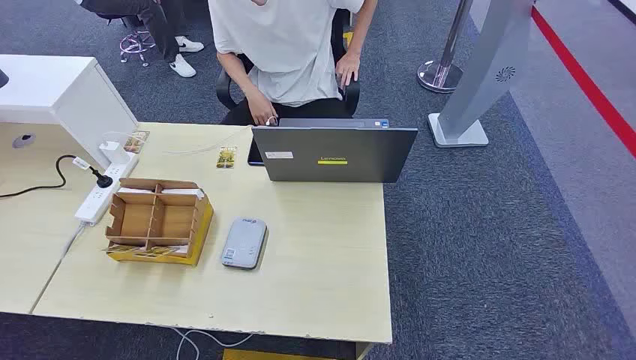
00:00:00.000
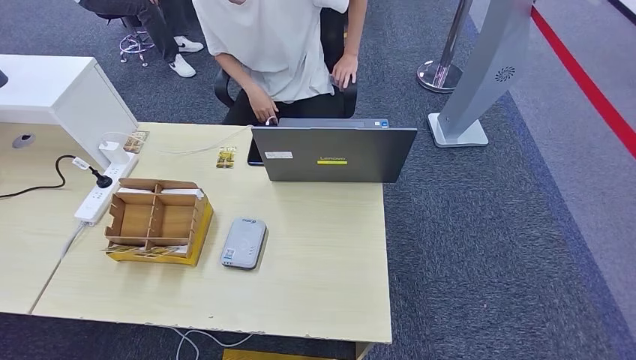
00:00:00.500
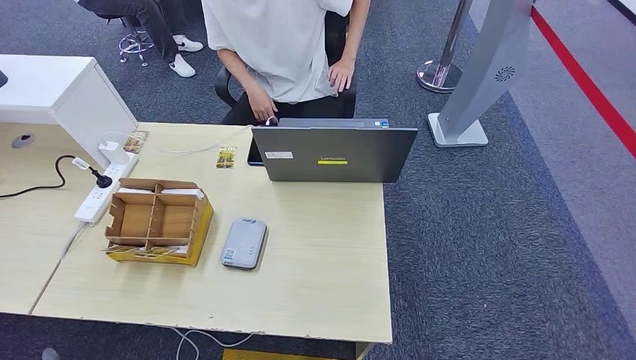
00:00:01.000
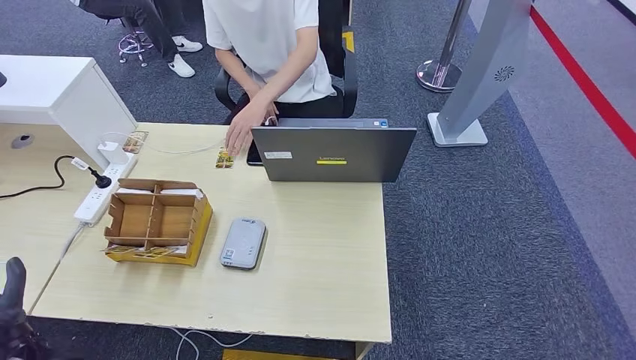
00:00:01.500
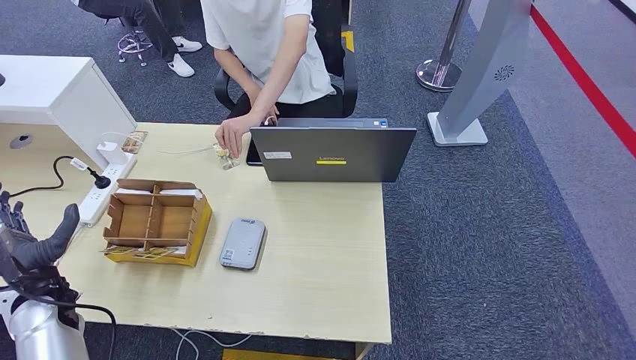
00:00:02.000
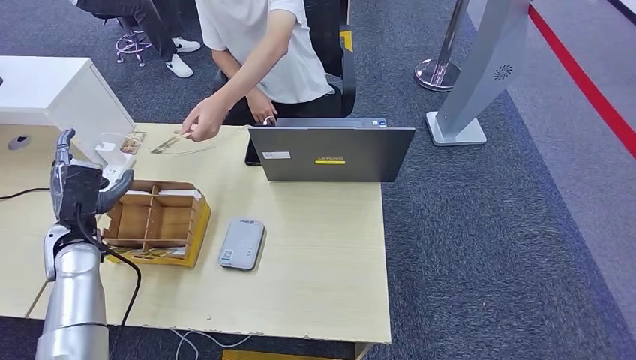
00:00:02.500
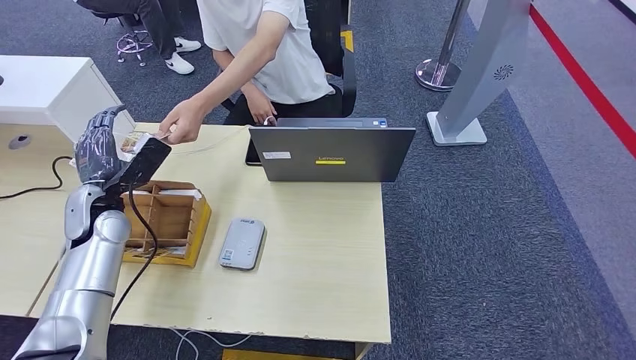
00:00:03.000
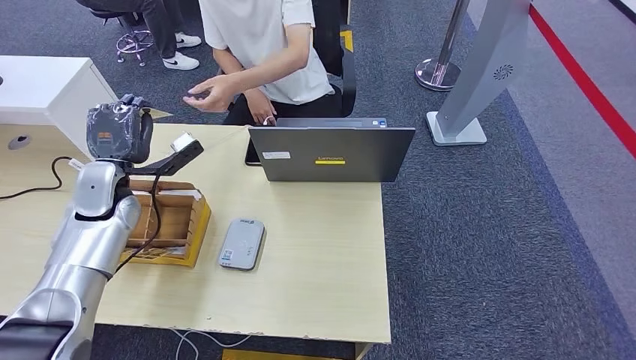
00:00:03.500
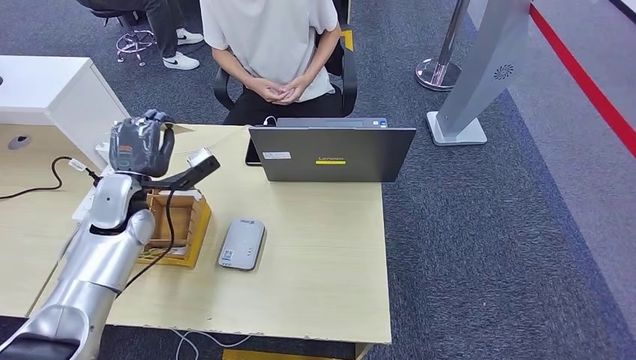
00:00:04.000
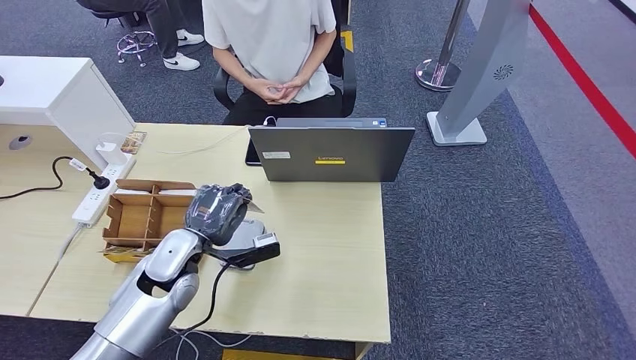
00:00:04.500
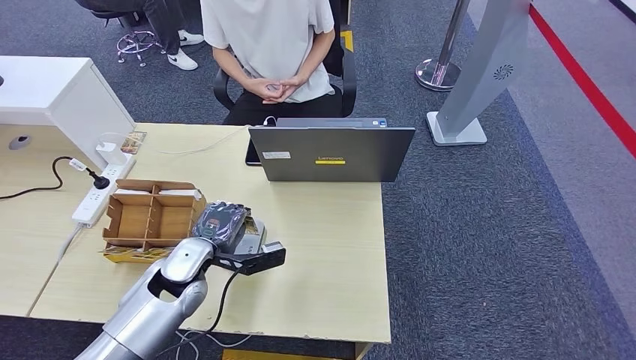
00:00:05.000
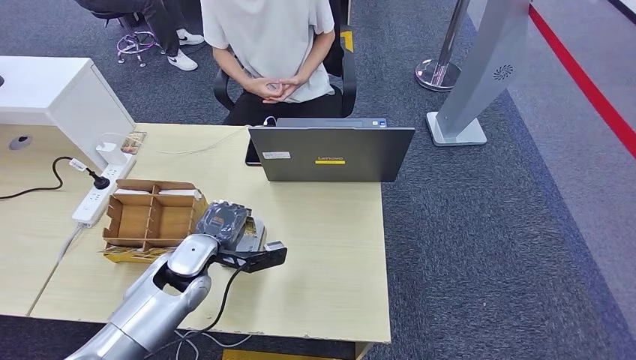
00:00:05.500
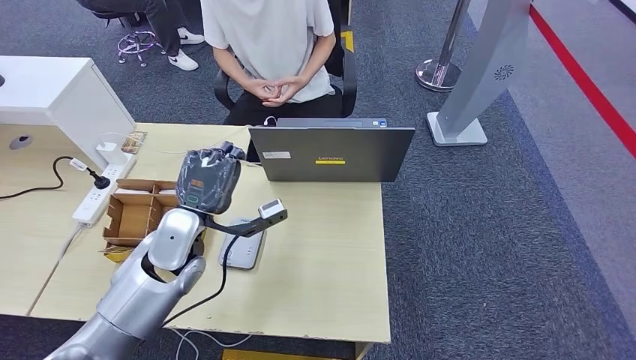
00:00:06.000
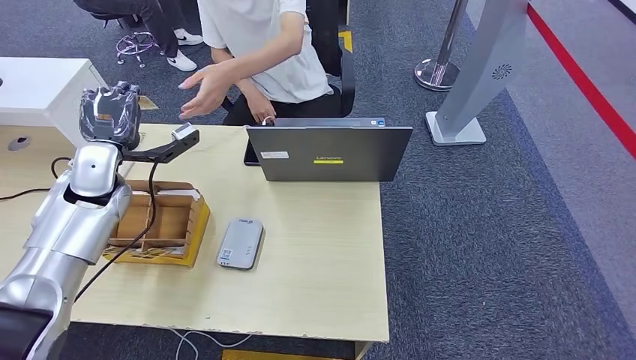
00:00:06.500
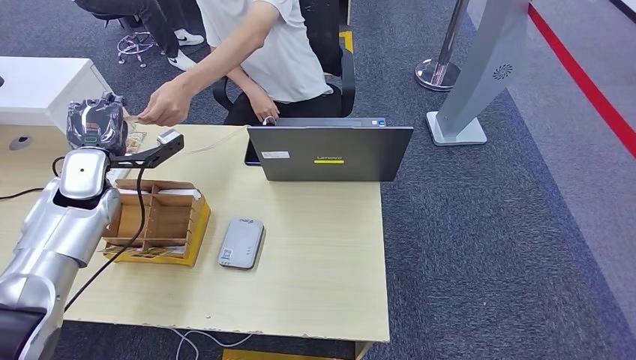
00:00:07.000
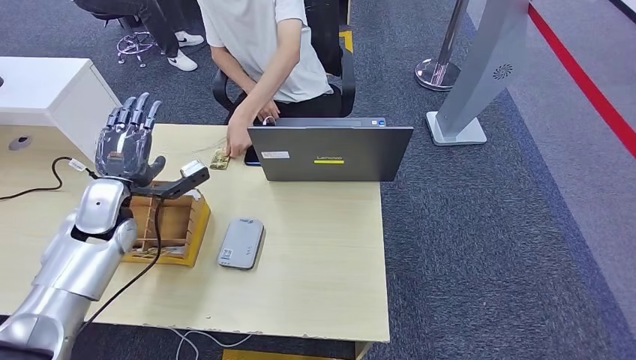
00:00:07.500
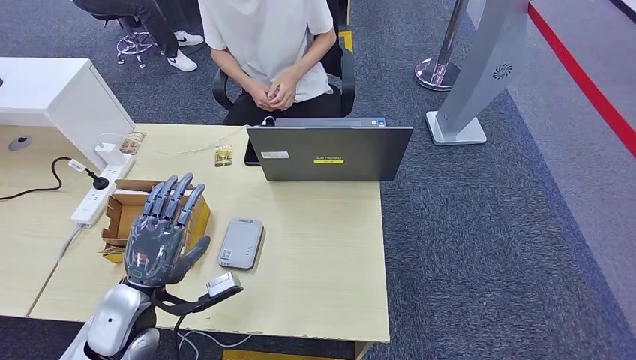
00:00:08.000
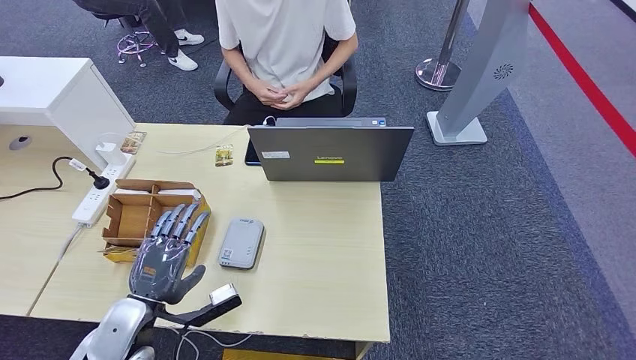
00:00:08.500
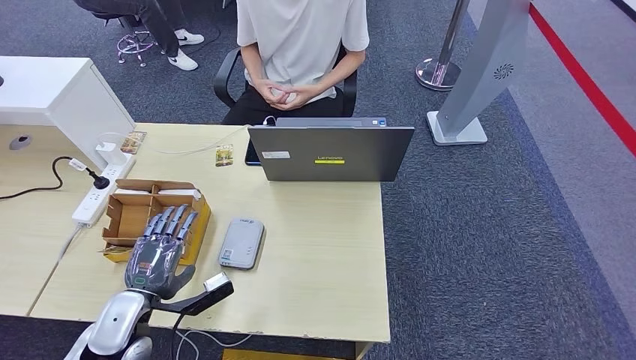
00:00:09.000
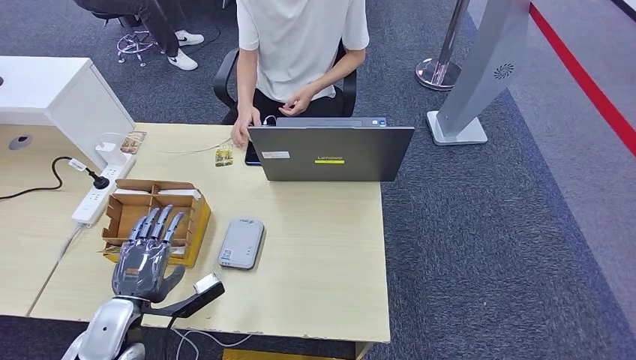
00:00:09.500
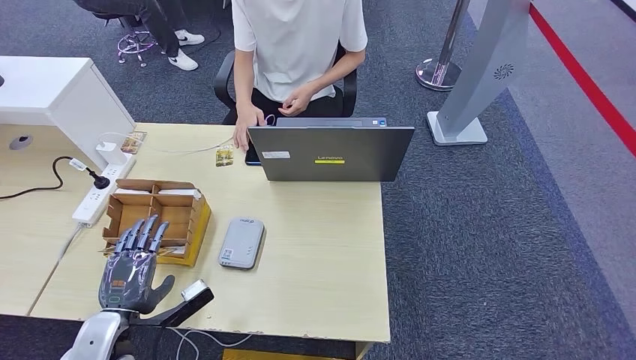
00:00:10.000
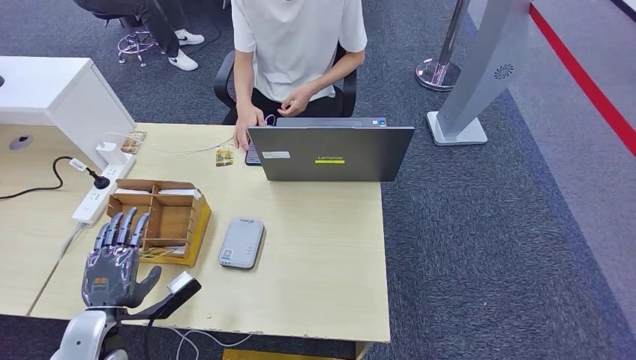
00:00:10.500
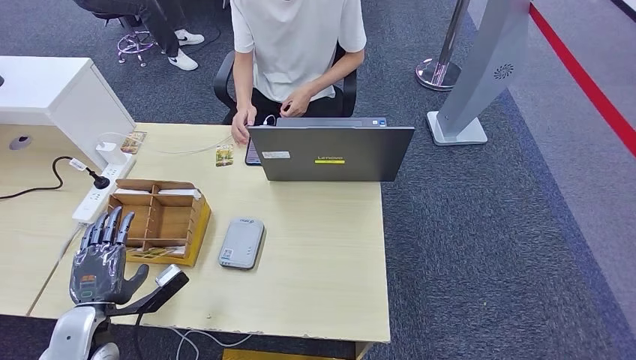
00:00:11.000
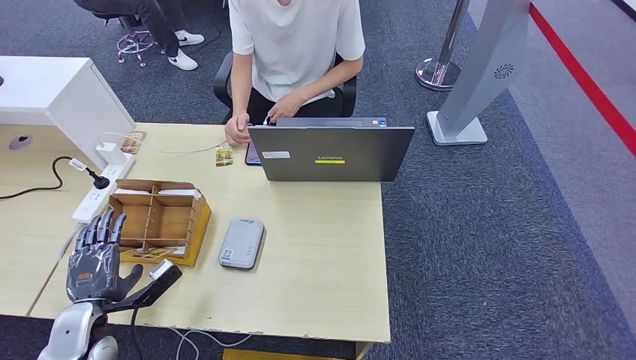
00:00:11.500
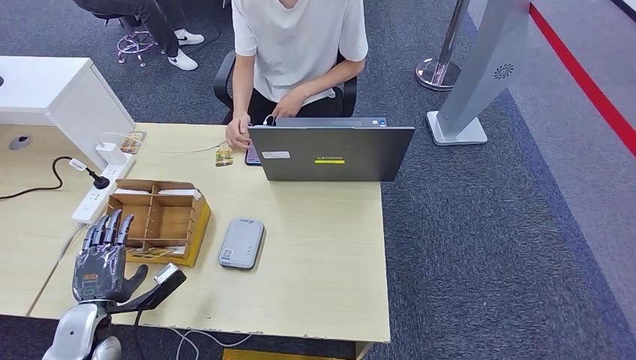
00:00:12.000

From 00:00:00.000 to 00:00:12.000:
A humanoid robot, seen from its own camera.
Step, from 00:00:00.000 to 00:00:03.000: Take the ID card from the person's hand.
Step, from 00:00:04.000 to 00:00:05.500: Place the ID card on the card reader.
Step, from 00:00:06.500 to 00:00:08.000: Hand the ID card to the person.
From 00:00:02.000 to 00:00:04.000: The left hand moves forward, to the right and upward, some 20 cm.
From 00:00:04.000 to 00:00:06.000: The left hand travels to the right by about 10 cm.
From 00:00:06.000 to 00:00:08.000: The left hand shifts about 15 cm backward, to the left and downward.
From 00:00:08.000 to 00:00:10.000: The left hand travels downward by about 5 cm.
From 00:00:10.000 to 00:00:12.000: The left hand is displaced to the left by roughly 5 cm.

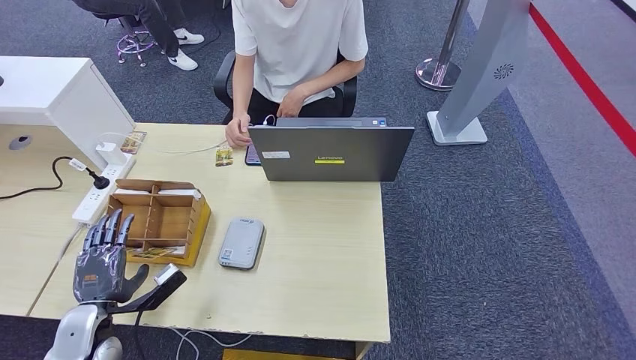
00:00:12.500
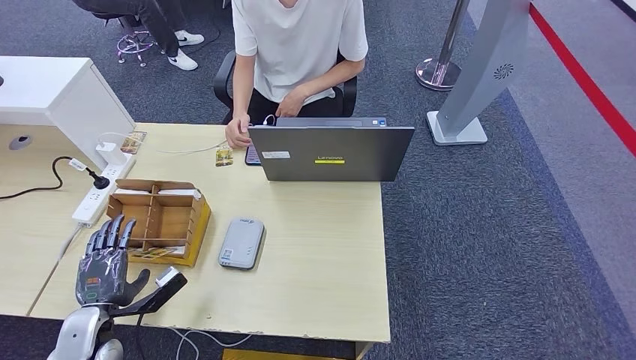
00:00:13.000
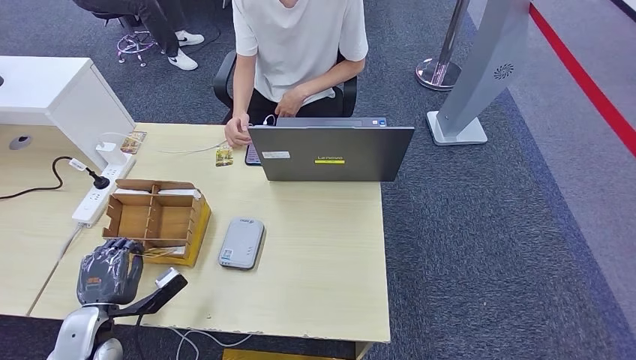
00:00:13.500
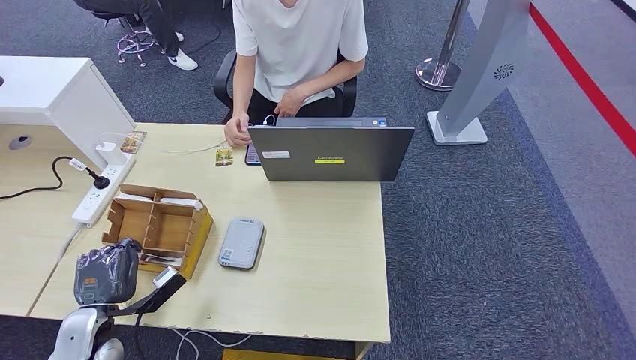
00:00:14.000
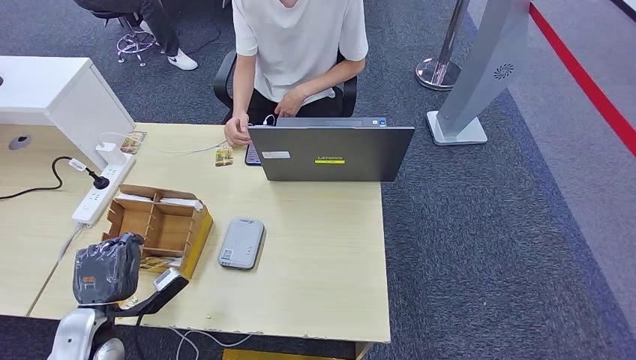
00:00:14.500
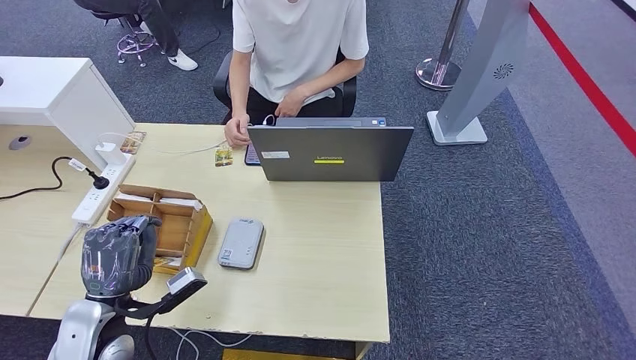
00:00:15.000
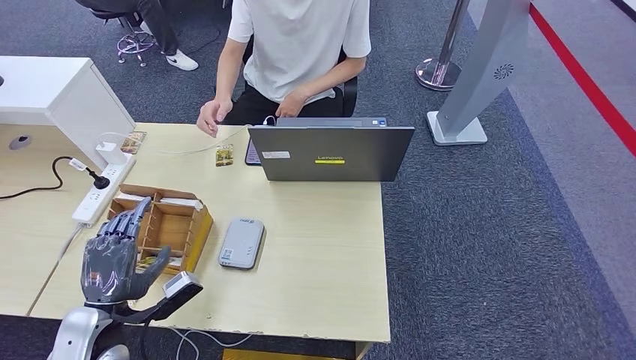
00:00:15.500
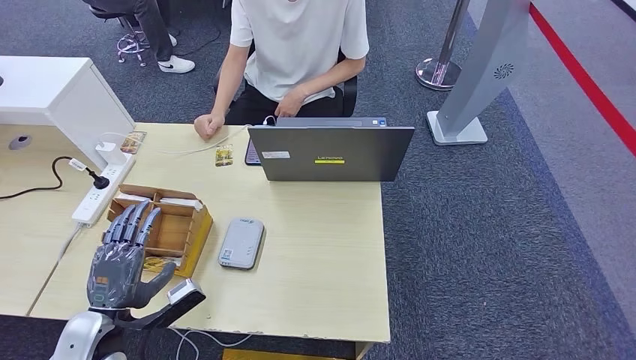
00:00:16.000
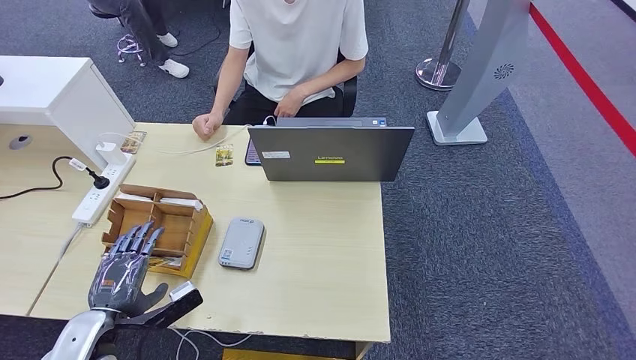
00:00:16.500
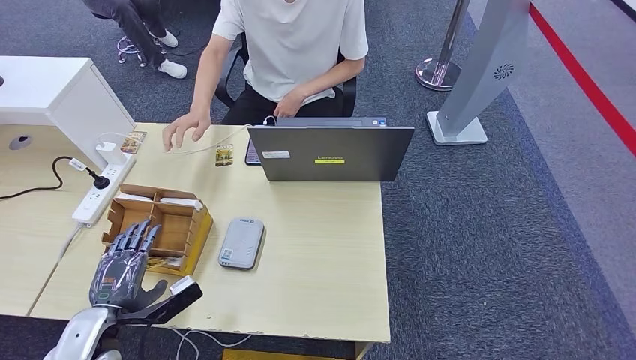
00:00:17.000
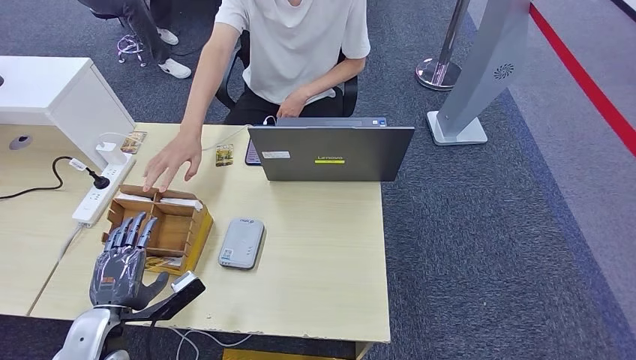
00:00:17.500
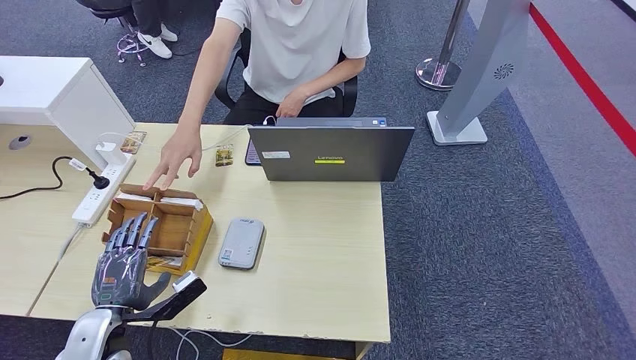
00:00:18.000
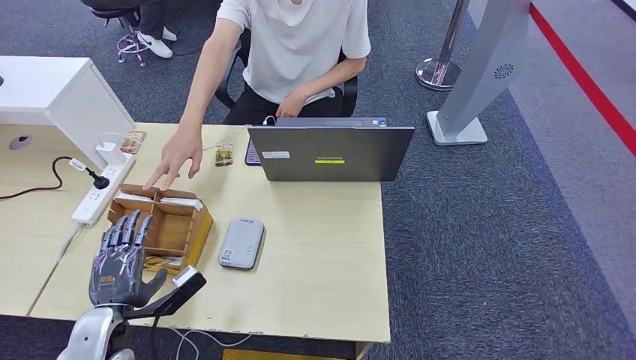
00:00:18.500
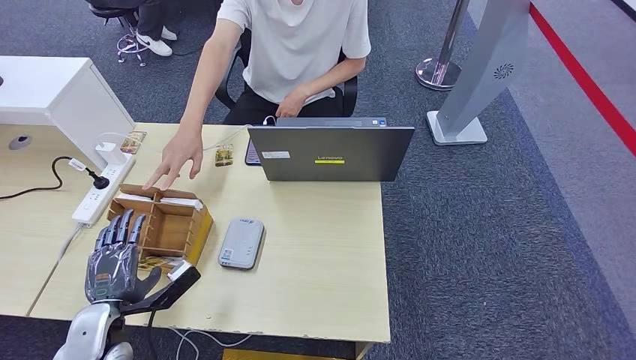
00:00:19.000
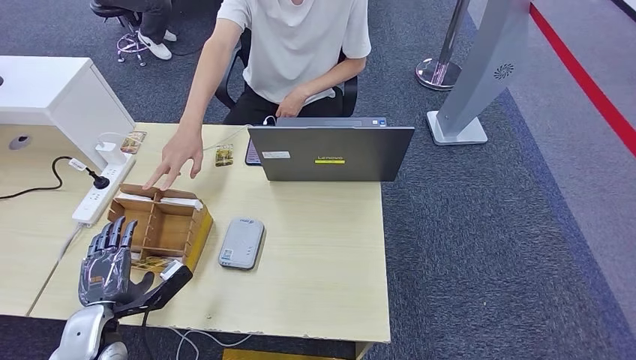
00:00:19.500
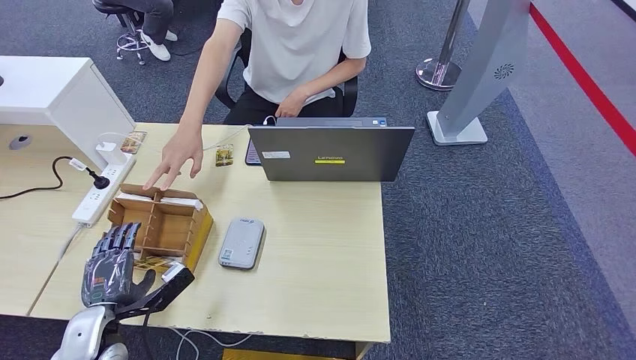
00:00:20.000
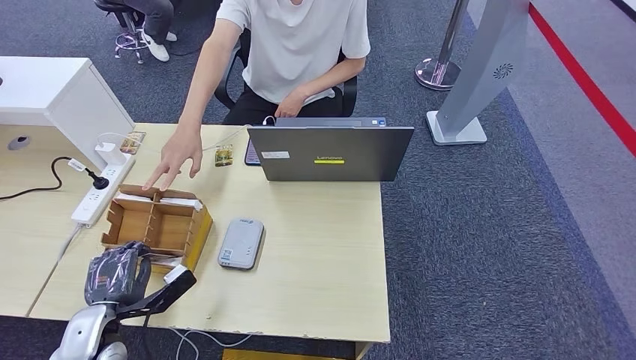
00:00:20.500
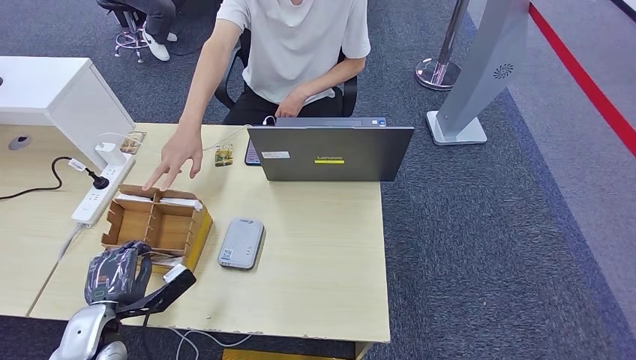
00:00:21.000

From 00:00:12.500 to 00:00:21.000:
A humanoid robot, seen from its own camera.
From 00:00:12.500 to 00:00:14.500: The hands stay close to where they were, moving slightly.
From 00:00:16.500 to 00:00:21.000: The hands stay close to where they were, moving slightly.
